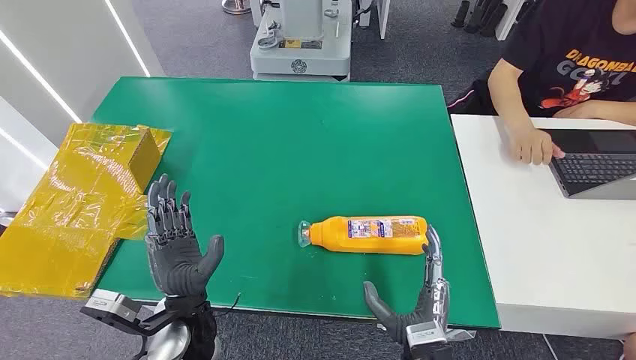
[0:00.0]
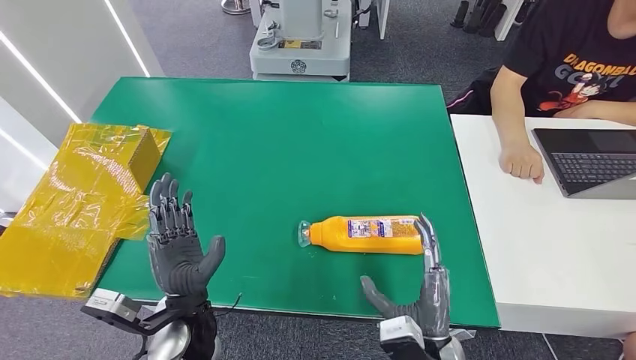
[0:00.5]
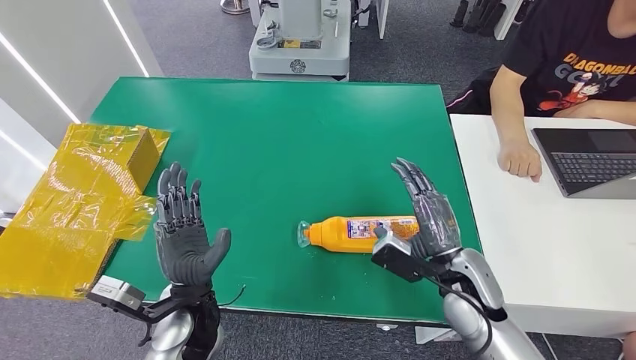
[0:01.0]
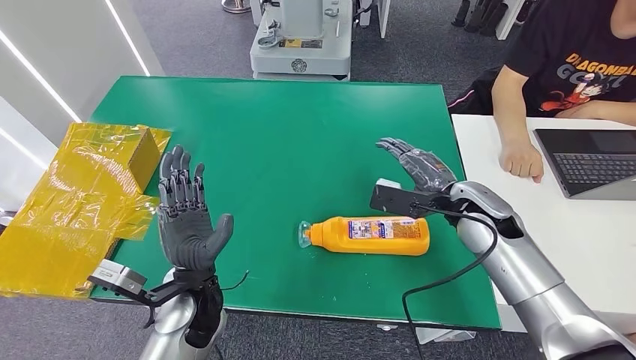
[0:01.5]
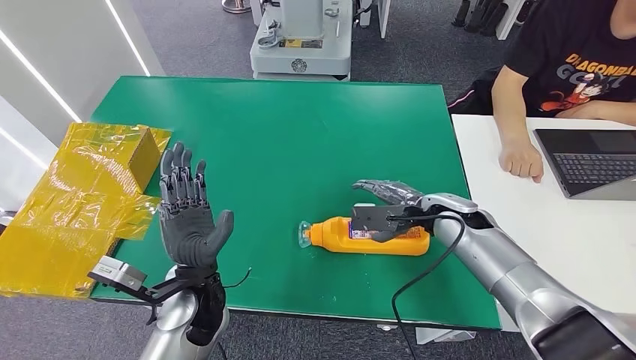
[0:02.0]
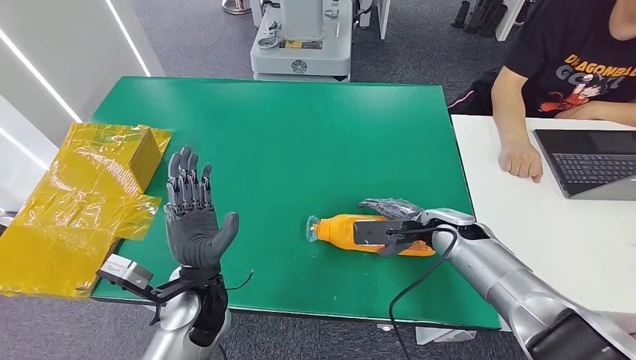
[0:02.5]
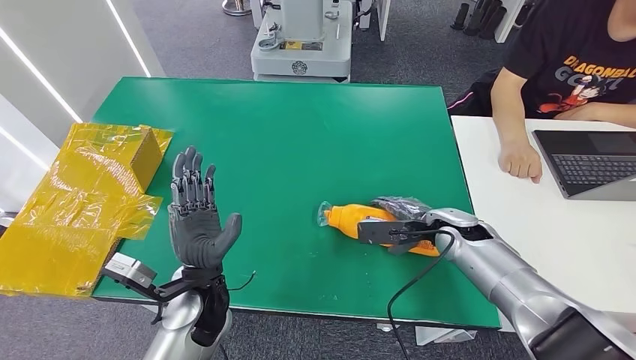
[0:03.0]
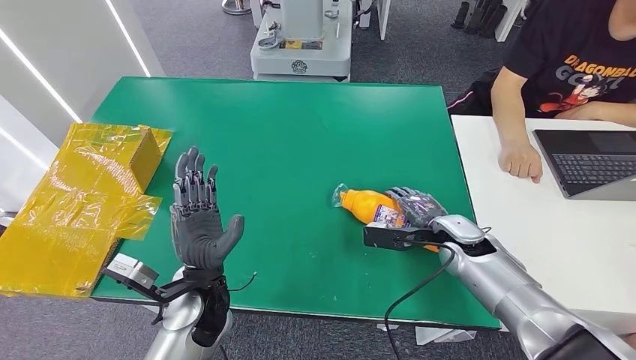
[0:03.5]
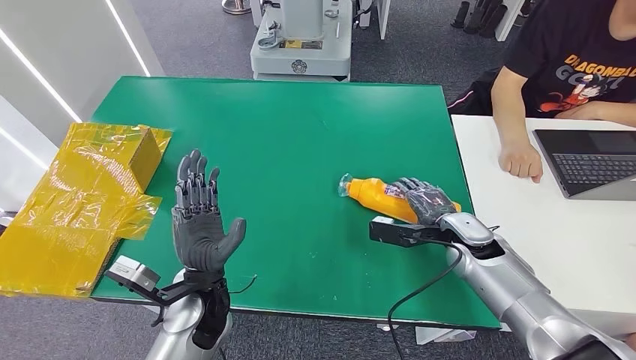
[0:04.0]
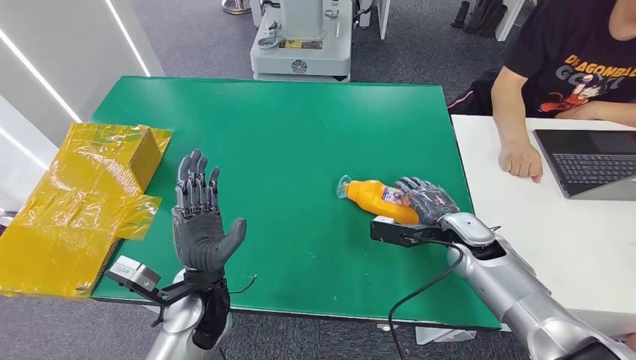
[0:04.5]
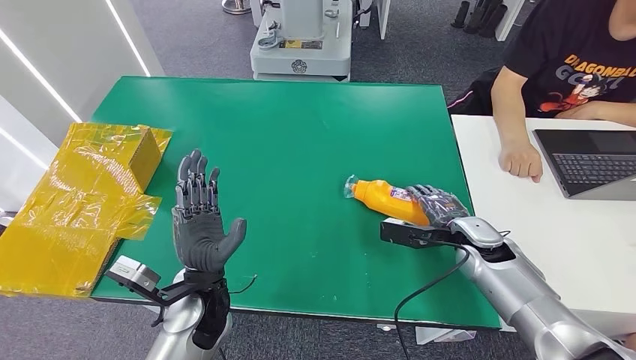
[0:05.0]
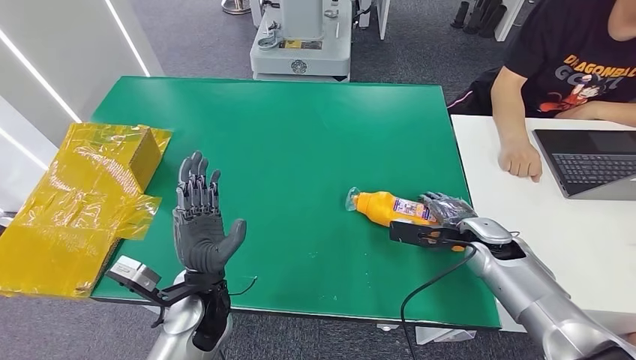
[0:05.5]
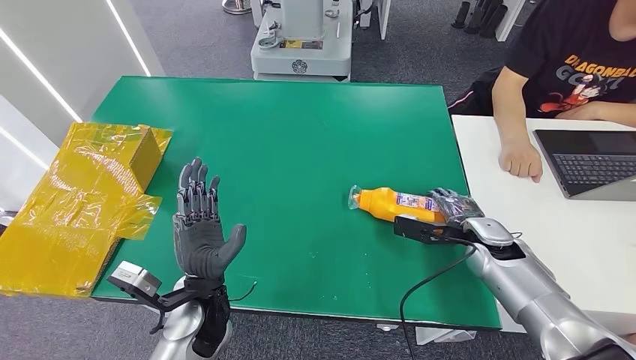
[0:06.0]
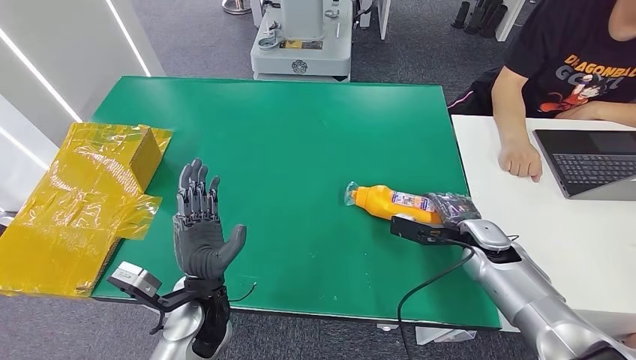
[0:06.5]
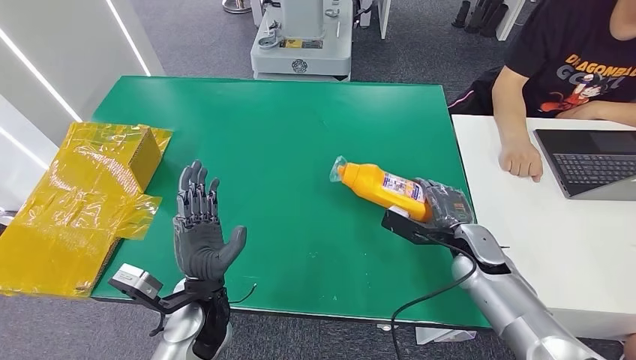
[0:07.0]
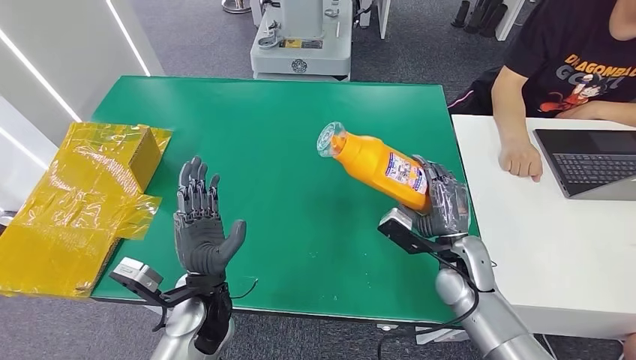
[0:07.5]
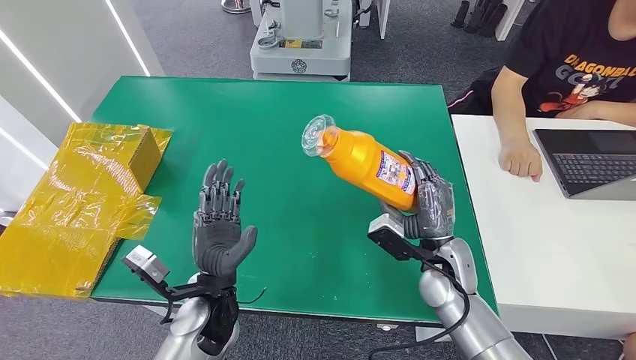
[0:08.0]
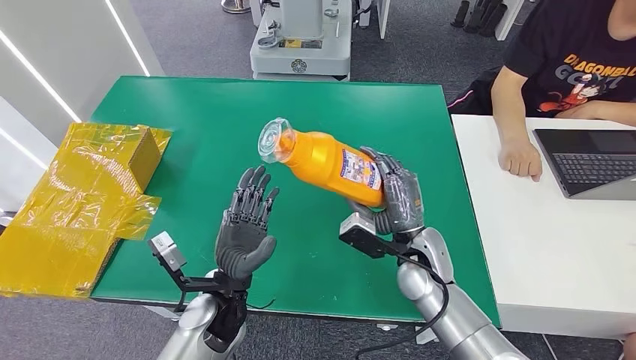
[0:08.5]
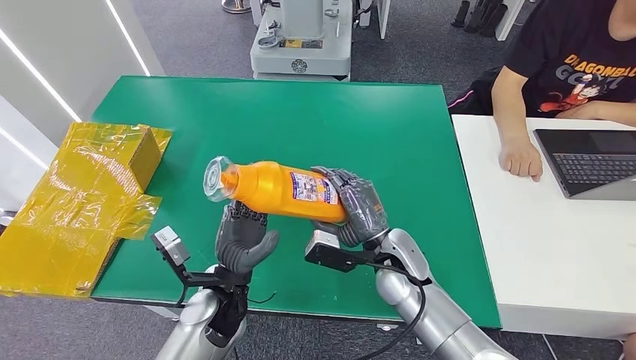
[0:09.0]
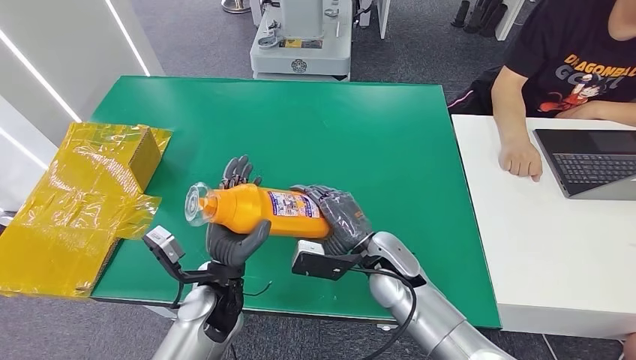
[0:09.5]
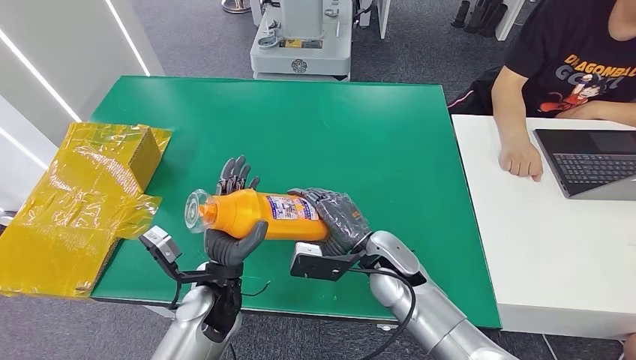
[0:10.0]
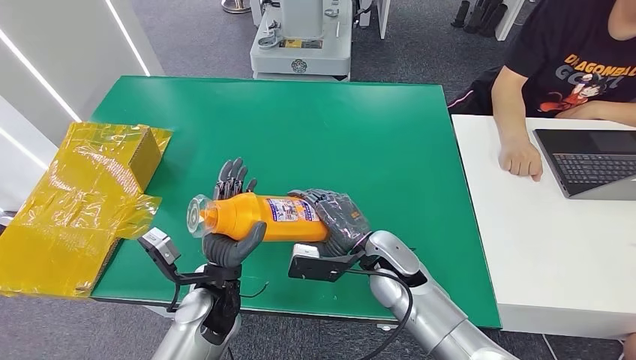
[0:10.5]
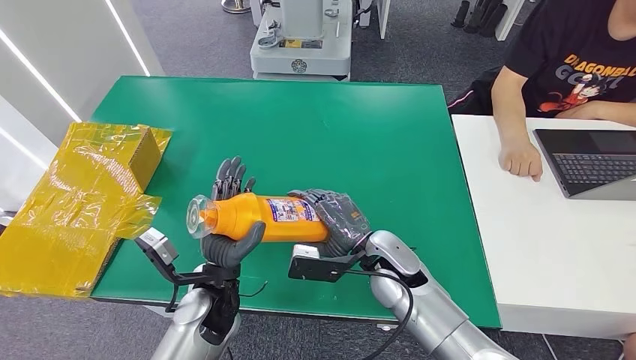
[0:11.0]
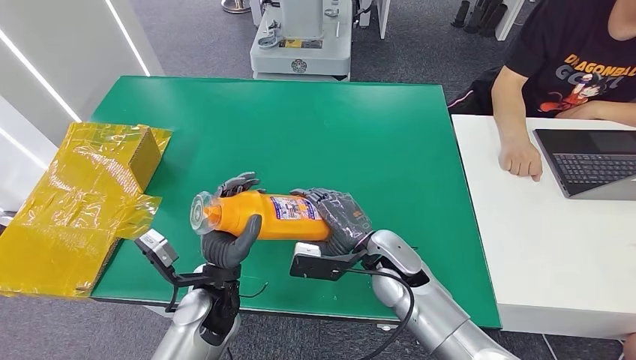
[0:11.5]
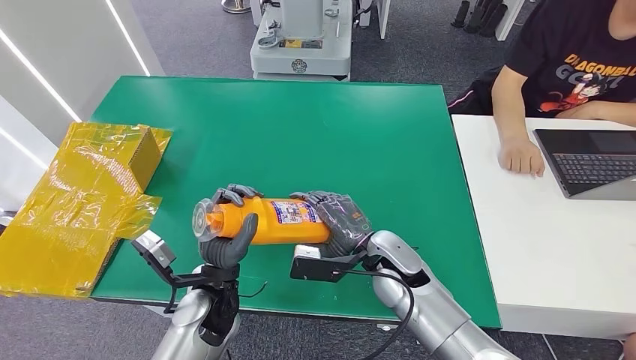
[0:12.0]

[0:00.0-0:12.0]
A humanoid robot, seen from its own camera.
Step, 0:00.0 to 0:08.0: Pick up the bottle from the table.
0:02.0 to 0:04.0: The right hand moves some 5 cm.
0:04.0 to 0:06.0: The hands make only small movements.
0:06.0 to 0:08.0: The right hand goes approximately 15 cm to the left and backward.
0:08.0 to 0:10.0: The right hand travels to the left by roughly 10 cm.
0:10.0 to 0:12.0: The hands move only a little.

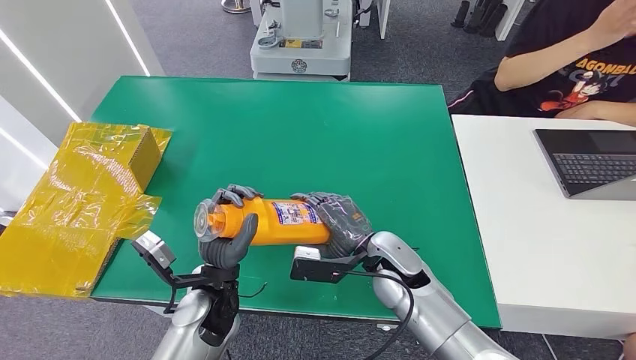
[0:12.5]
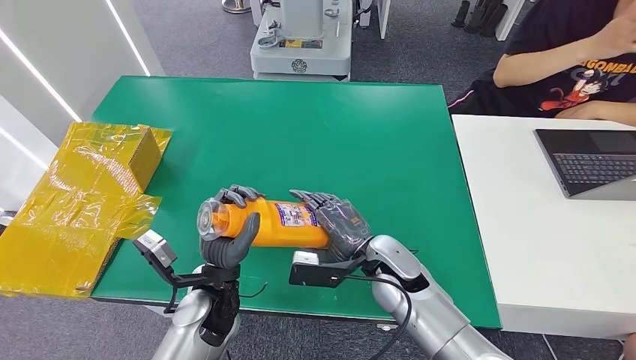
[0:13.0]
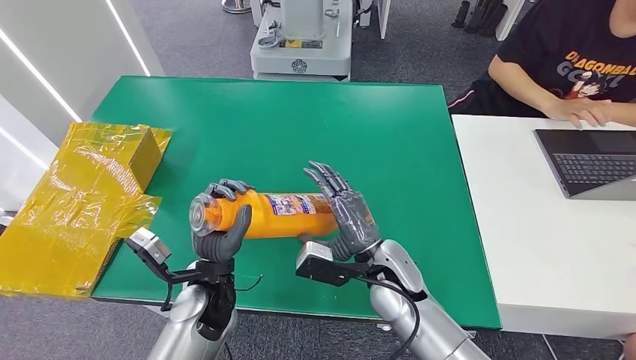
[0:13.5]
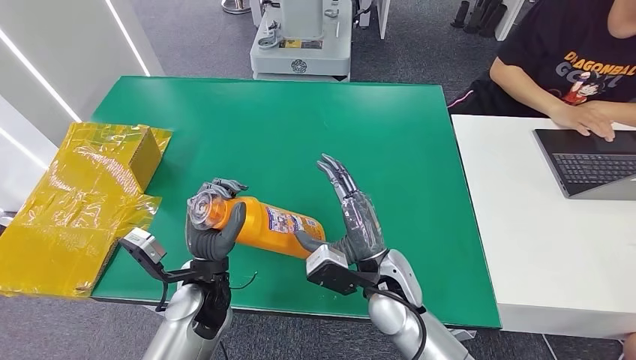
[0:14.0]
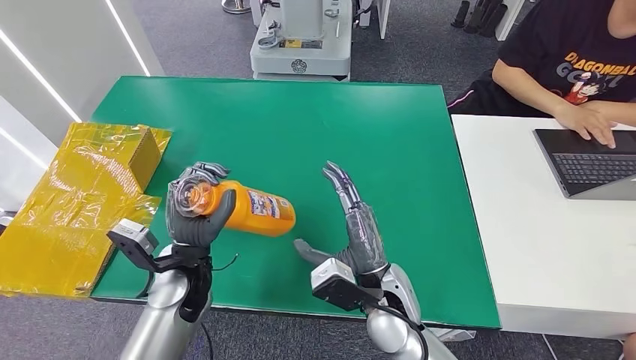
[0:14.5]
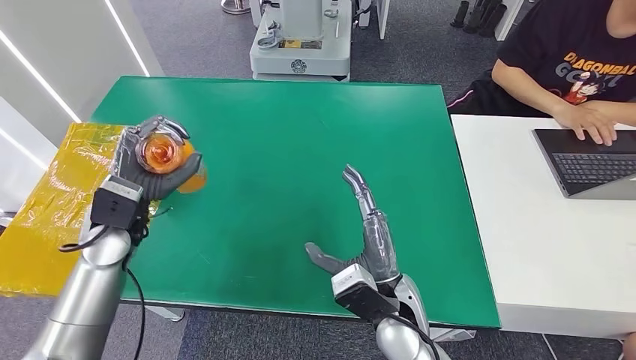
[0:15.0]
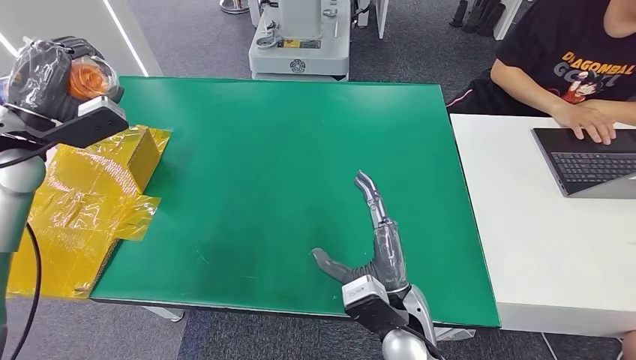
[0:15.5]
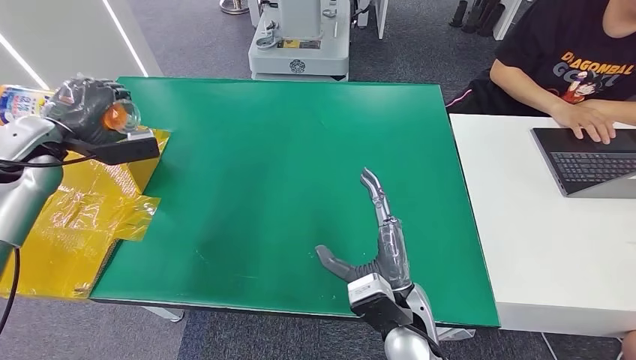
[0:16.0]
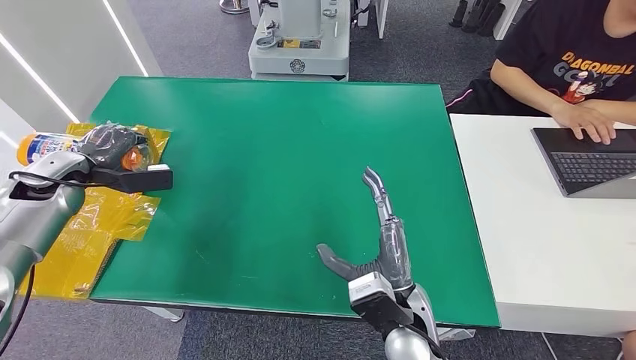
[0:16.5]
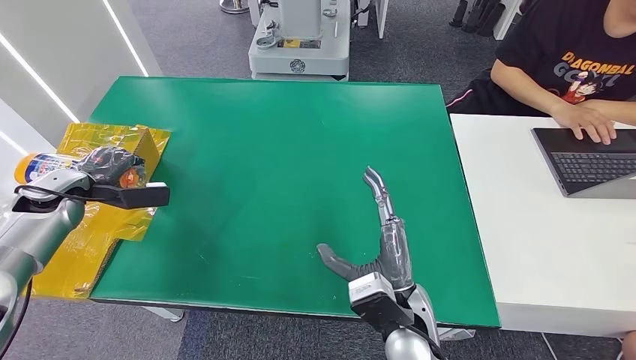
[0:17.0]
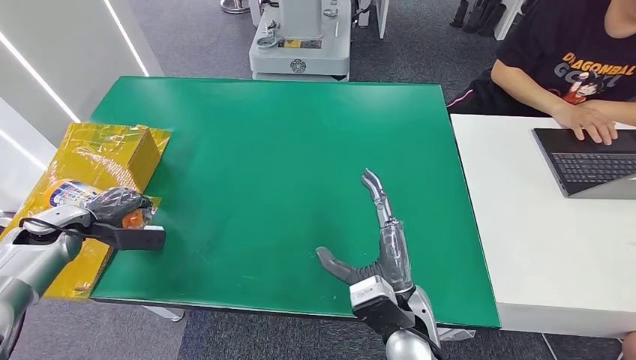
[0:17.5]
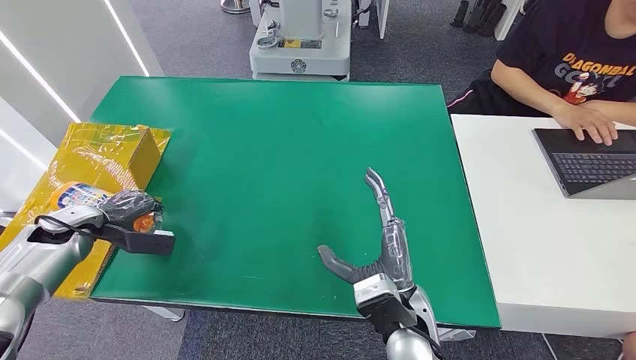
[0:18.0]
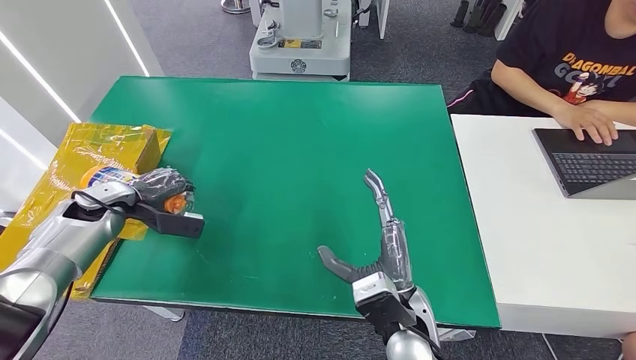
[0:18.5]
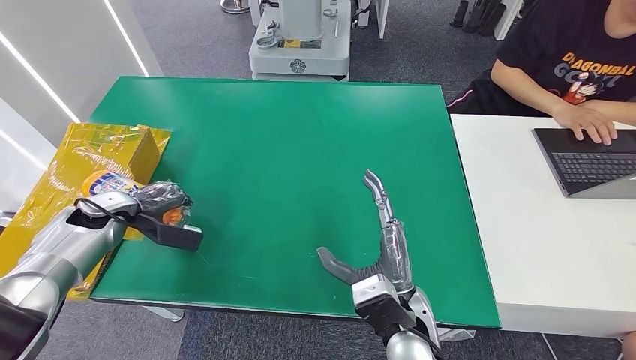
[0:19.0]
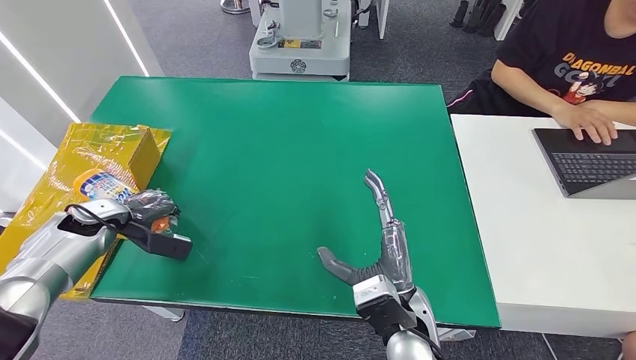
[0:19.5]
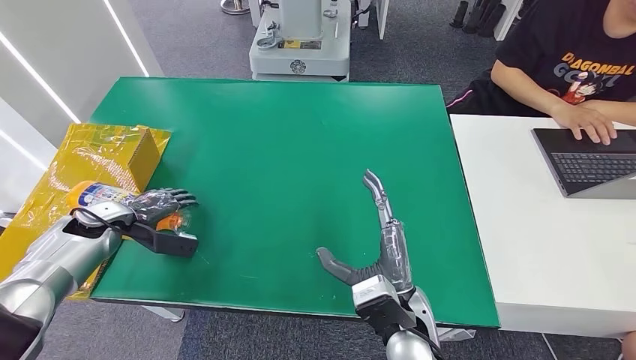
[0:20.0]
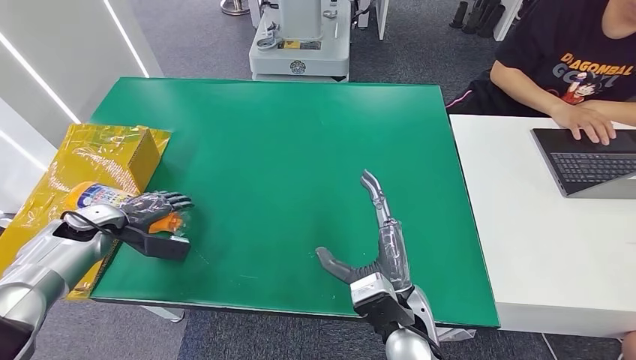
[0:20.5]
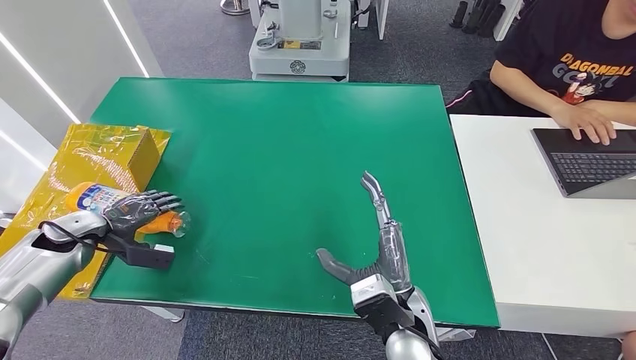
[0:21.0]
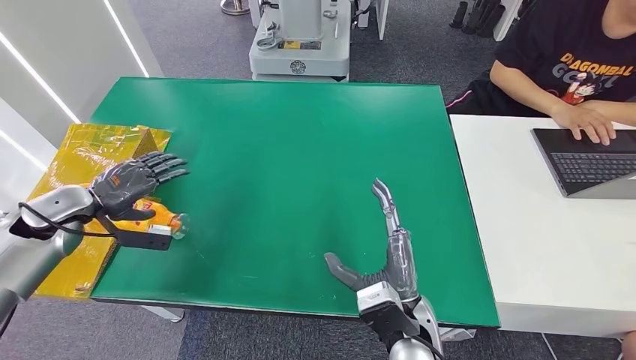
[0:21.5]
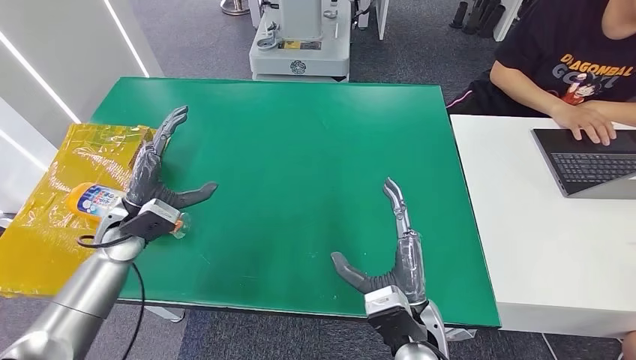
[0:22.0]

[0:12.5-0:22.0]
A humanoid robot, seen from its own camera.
Step, 0:12.5 to 0:22.0: Turn the bottle to the front side.
0:12.5 to 0:14.5: The right hand goes roughly 5 cm backward. Meanwhile the left hand shifts by some 5 cm.
0:14.5 to 0:16.5: The left hand is displaced to the left and forward by some 30 cm.
0:16.5 to 0:18.0: The left hand goes some 10 cm downward and backward.
0:20.0 to 0:22.0: The left hand goes approximately 10 cm to the right.
